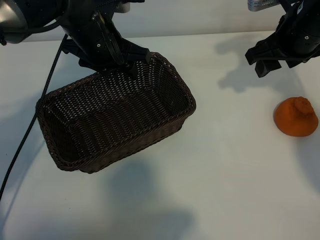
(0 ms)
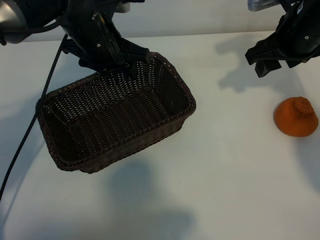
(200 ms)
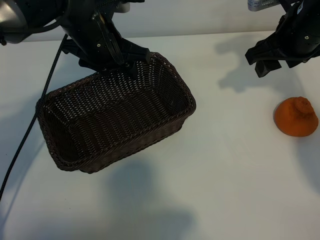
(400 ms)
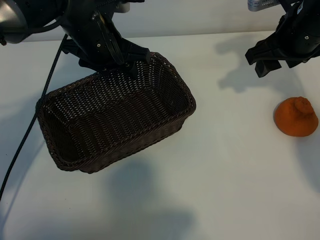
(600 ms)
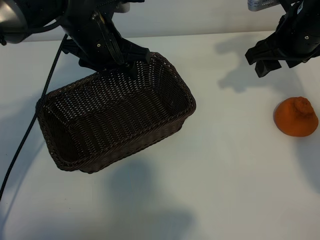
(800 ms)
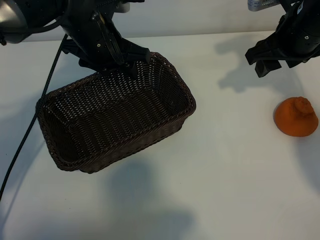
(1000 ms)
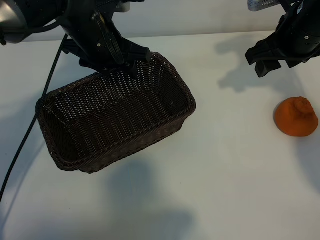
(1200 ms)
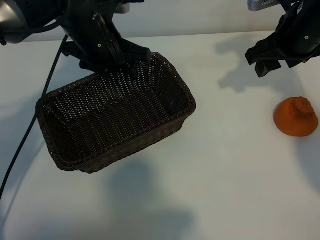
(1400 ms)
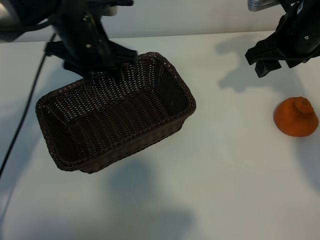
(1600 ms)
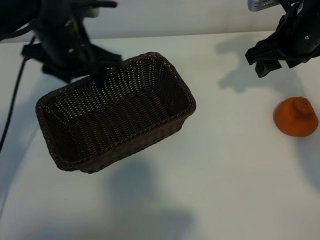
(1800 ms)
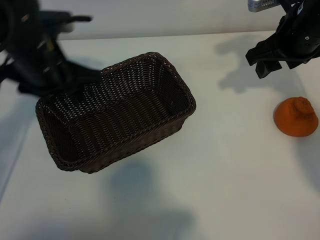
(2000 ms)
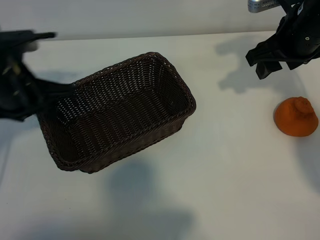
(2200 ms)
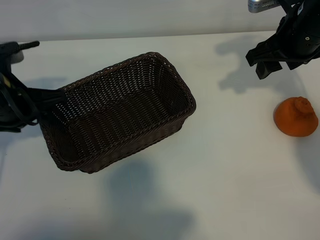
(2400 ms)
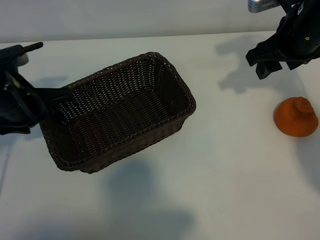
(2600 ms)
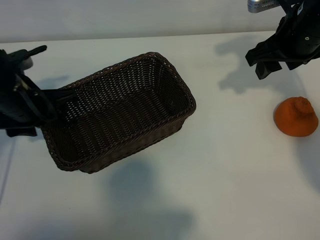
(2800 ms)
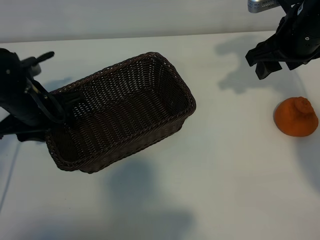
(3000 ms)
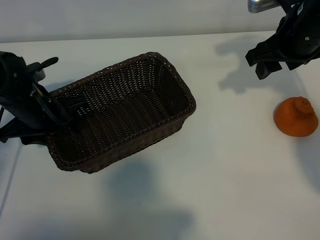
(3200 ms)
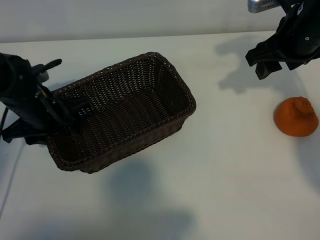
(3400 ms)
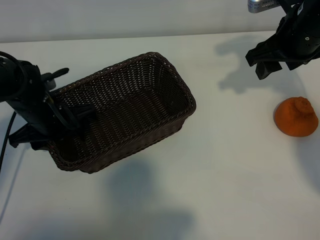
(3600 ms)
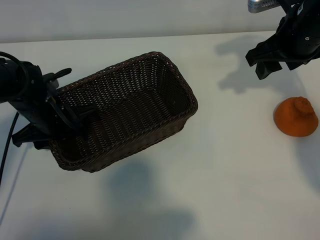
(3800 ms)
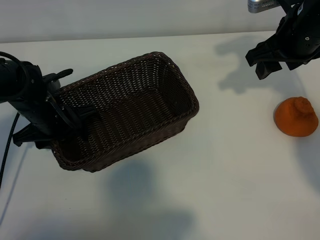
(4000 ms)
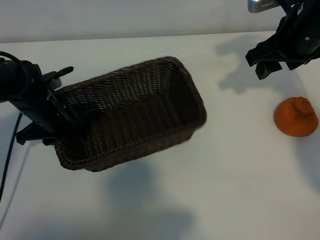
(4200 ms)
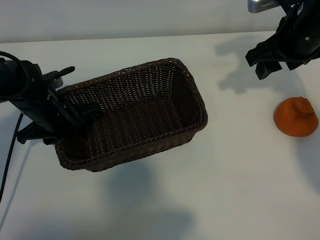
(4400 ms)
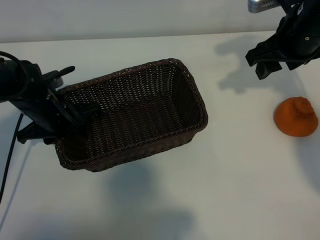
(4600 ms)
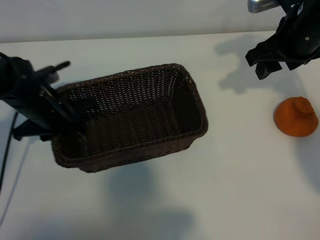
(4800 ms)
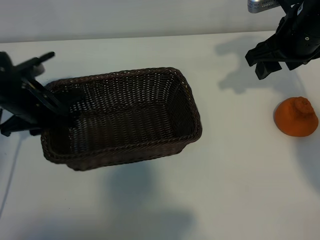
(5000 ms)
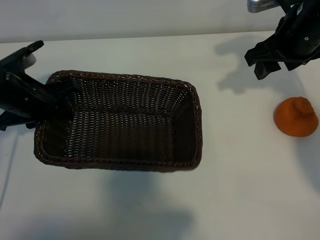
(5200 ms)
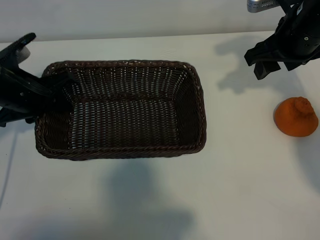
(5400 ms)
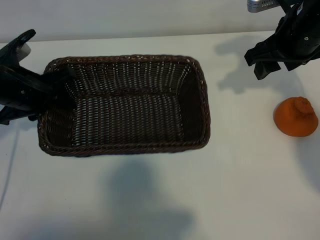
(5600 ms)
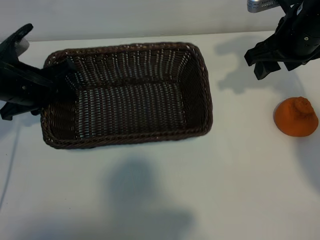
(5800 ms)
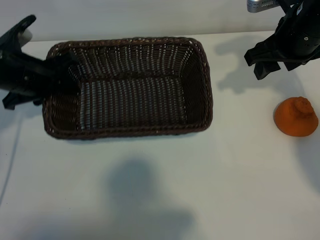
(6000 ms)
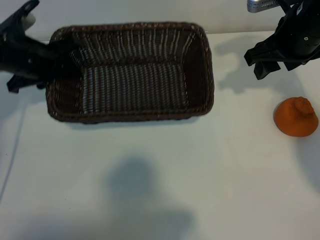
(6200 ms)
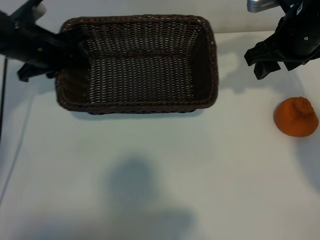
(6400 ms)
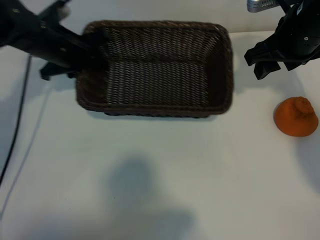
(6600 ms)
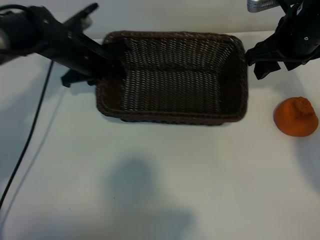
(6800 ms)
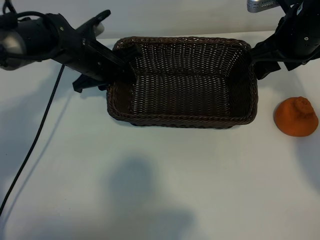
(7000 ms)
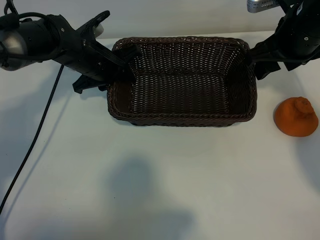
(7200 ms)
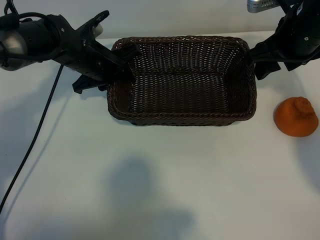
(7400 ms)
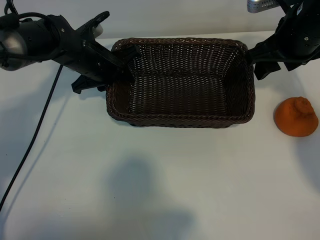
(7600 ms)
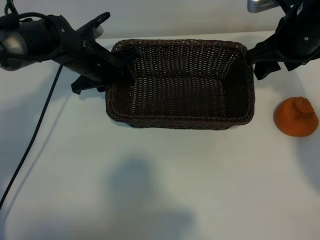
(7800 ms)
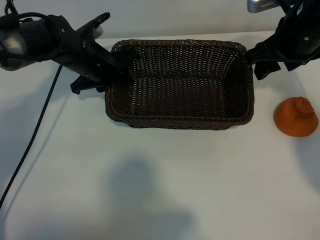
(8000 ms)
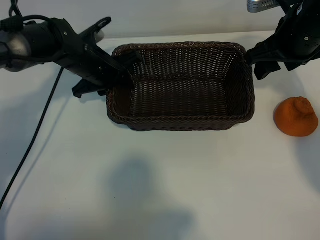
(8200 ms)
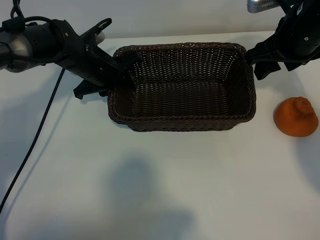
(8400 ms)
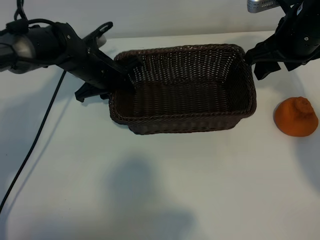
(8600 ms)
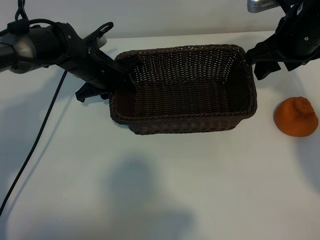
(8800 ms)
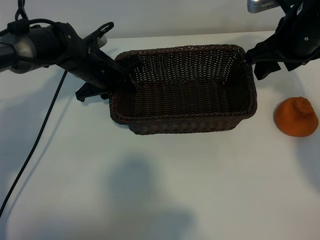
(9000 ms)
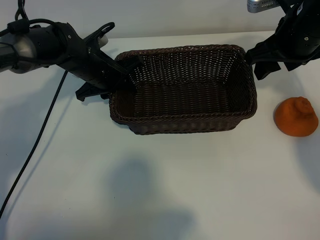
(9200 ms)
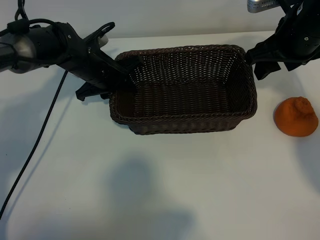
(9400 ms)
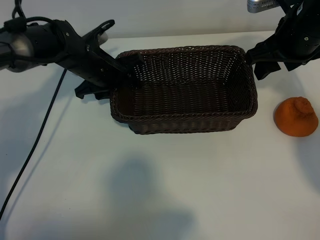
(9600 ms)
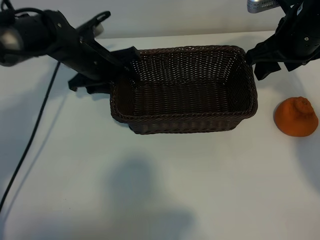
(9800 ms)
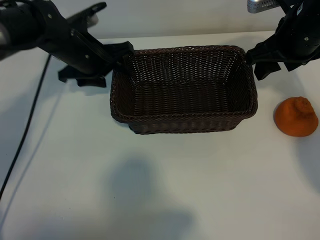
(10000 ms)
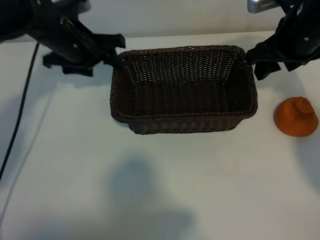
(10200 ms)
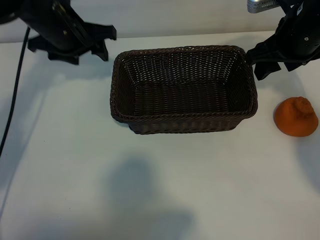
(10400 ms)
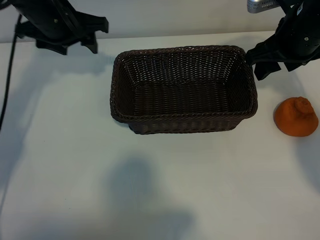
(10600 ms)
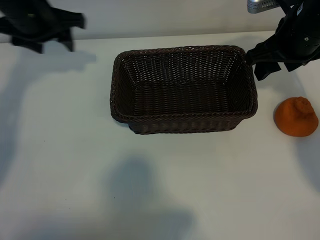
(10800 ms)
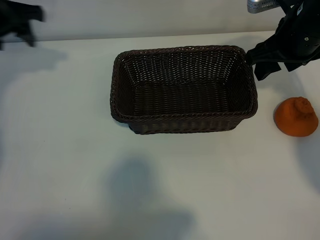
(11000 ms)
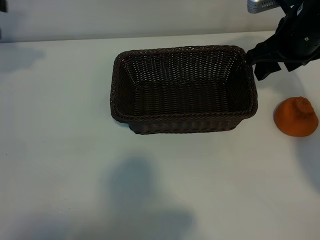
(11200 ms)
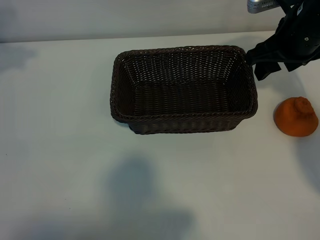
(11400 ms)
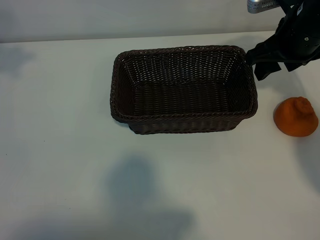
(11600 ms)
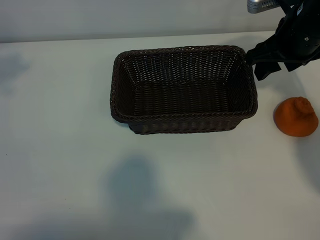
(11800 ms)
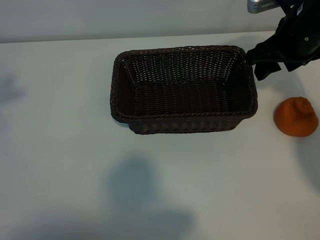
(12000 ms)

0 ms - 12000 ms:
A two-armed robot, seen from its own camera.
Task of the whole recording: pick up the orange and put it into the basket.
Step, 1200 ms - 4200 ms: Grasp the basket with left gripper.
Step, 4400 ms - 9400 ms: Place the basket in the center of view with left gripper.

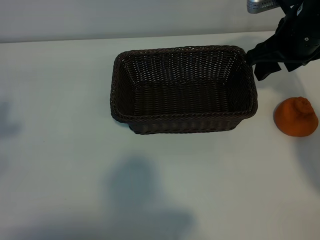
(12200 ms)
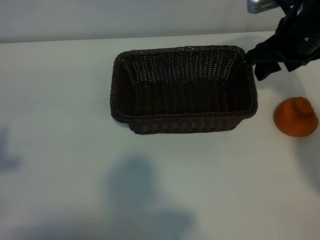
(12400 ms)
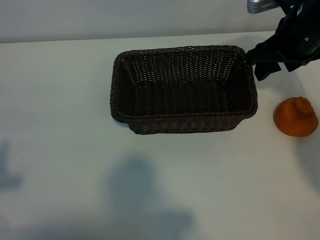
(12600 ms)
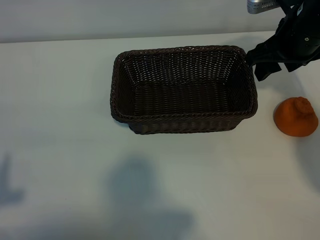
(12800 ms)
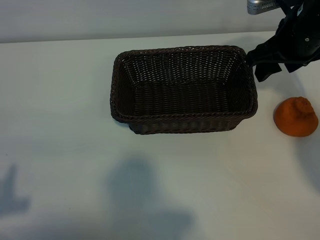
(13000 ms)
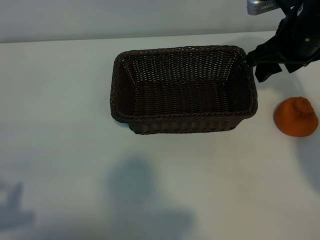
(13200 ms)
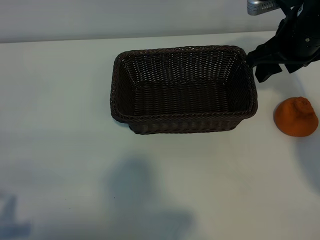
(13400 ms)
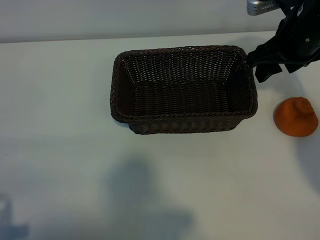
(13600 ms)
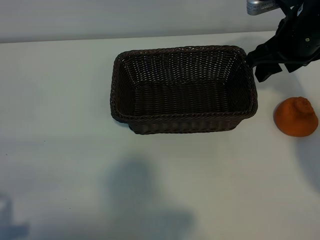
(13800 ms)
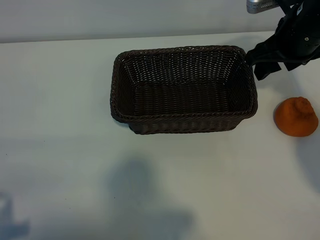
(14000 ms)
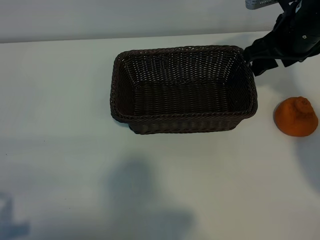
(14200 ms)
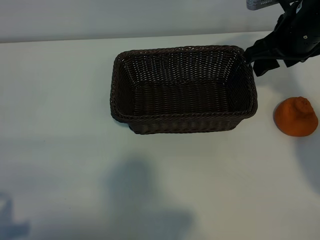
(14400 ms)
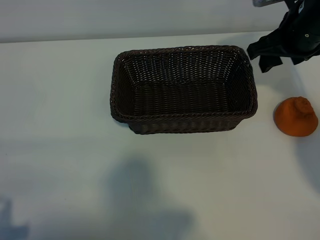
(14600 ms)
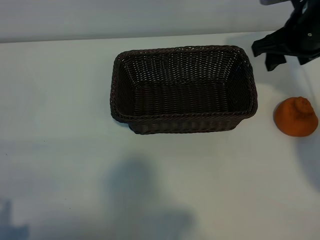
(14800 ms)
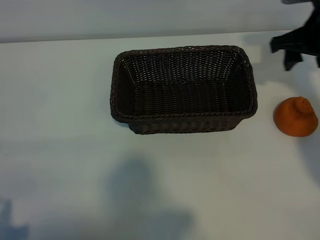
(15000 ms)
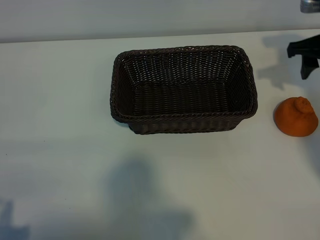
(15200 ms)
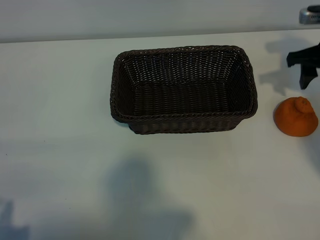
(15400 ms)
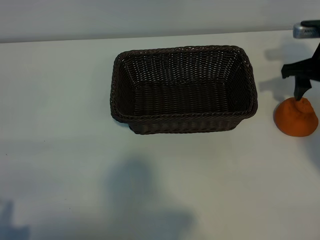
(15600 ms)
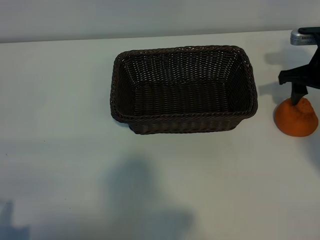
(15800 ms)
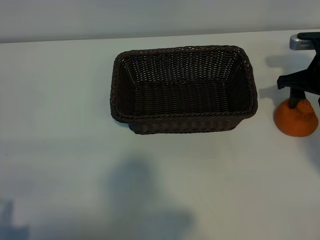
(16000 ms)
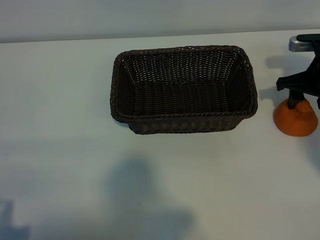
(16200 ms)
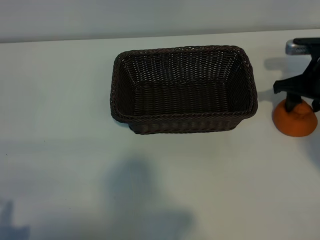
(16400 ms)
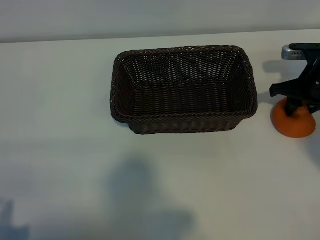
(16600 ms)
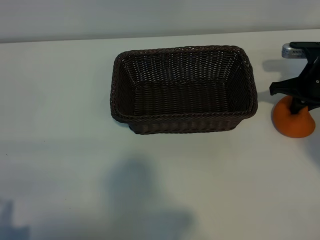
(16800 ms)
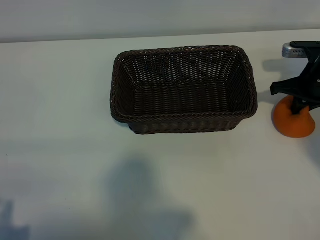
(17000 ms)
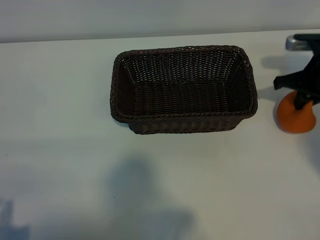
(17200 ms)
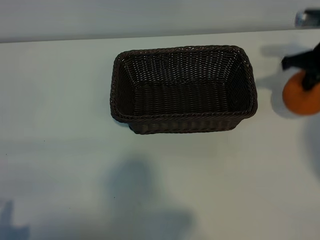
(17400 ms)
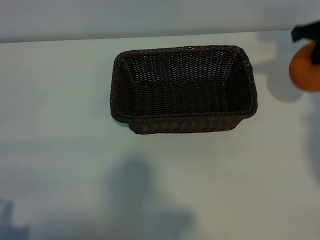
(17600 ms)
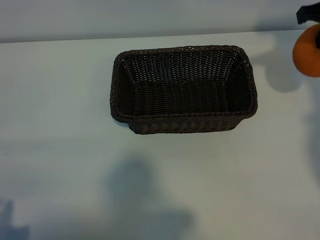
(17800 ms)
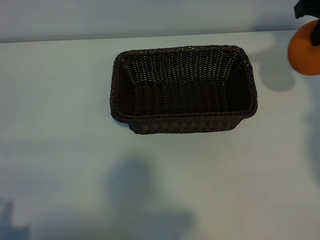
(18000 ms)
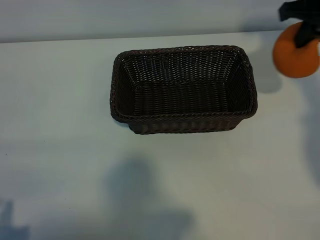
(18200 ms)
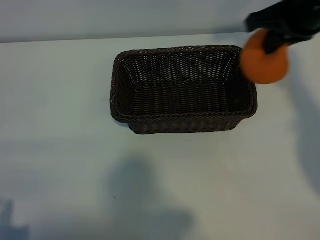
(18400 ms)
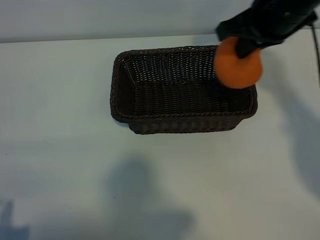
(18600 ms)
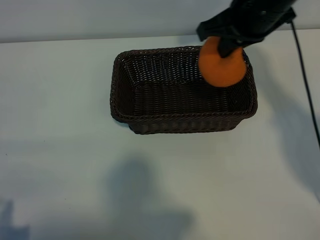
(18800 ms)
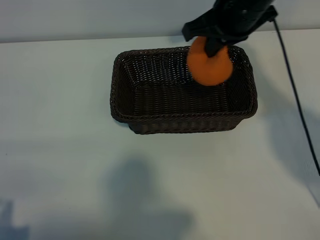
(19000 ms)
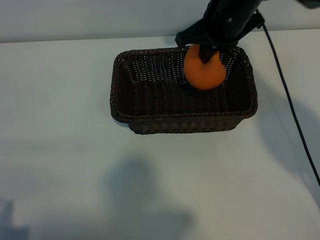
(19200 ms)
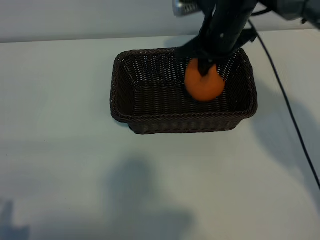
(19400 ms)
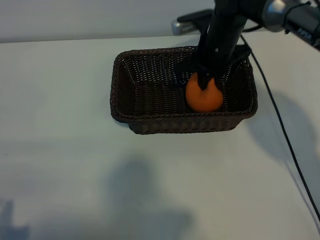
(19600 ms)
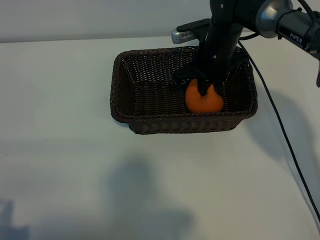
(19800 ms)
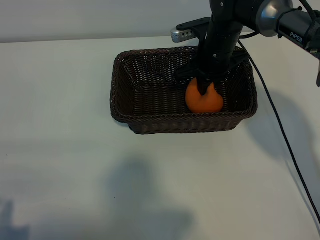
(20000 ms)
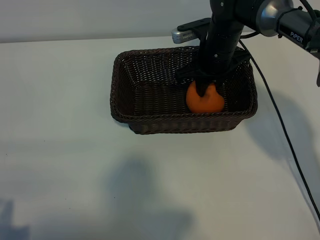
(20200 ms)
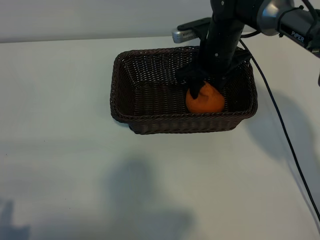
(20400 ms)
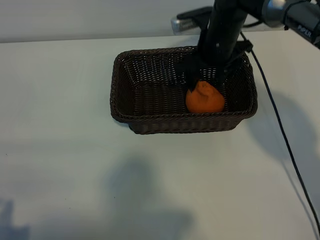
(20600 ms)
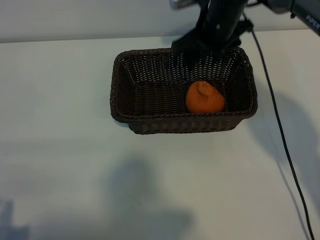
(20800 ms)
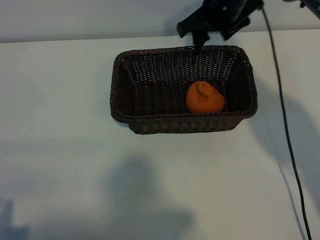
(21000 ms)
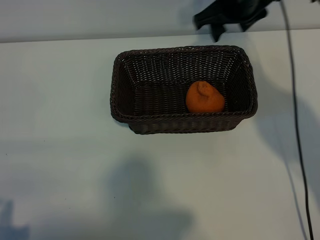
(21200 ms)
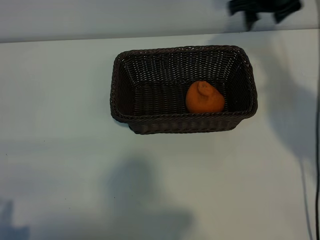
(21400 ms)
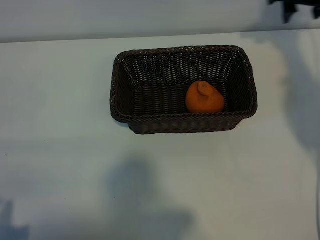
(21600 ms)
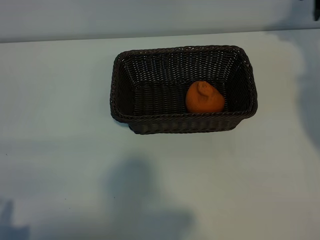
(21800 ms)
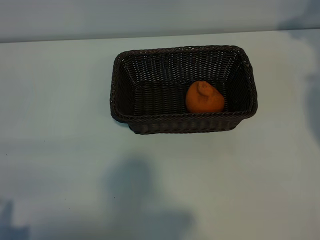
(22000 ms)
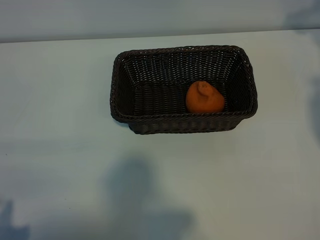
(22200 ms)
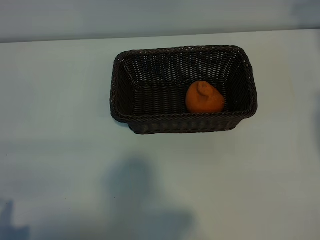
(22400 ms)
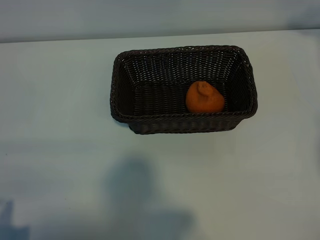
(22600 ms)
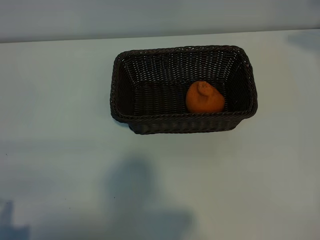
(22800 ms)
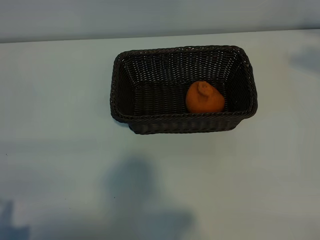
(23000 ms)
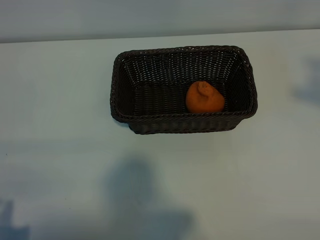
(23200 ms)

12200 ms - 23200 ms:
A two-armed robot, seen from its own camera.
Task of the whole recording: pick up the orange and put it into the basket.
Step, 12200 ms - 16600 ms: Grasp the orange with right gripper.
Step, 17000 ms - 20200 ms: Place the orange in the basket with right gripper.
